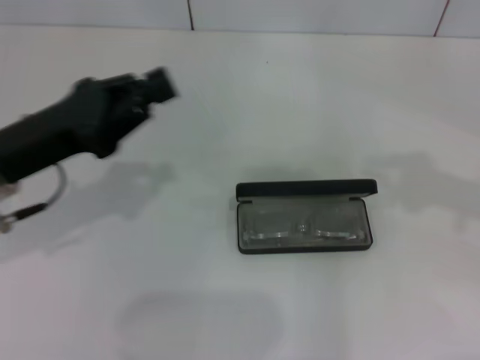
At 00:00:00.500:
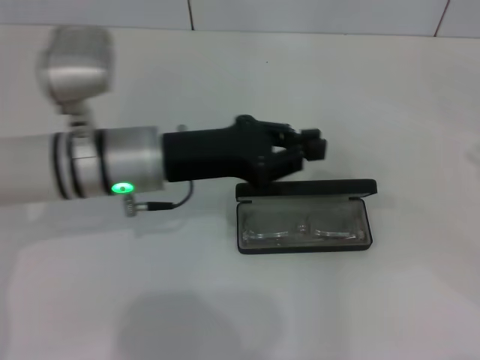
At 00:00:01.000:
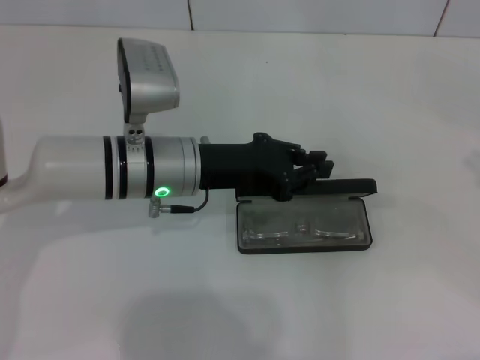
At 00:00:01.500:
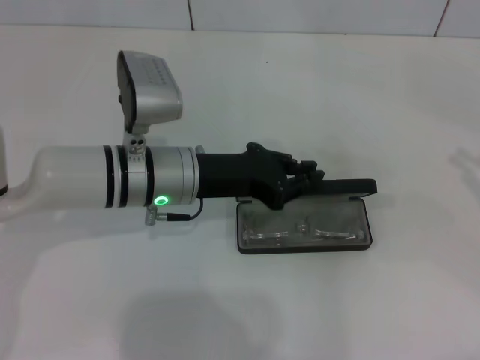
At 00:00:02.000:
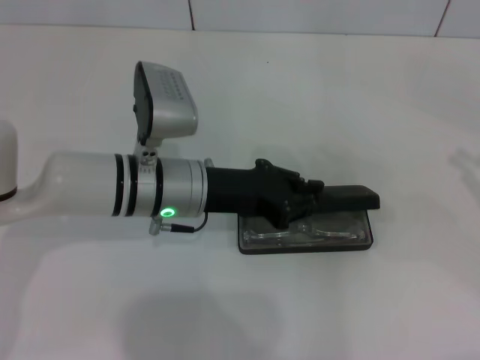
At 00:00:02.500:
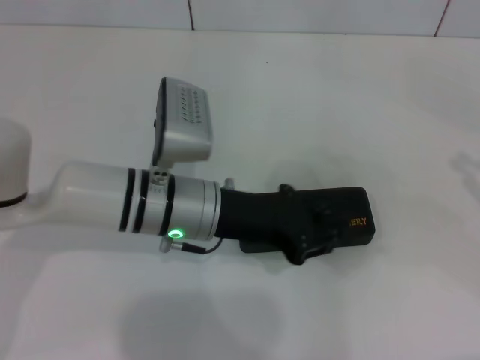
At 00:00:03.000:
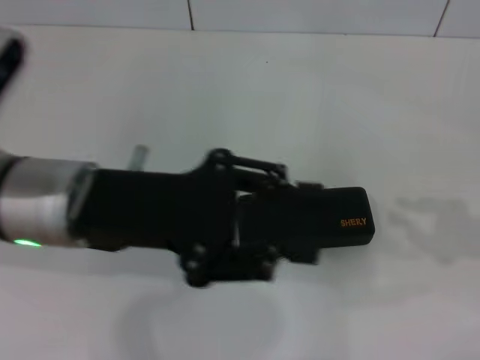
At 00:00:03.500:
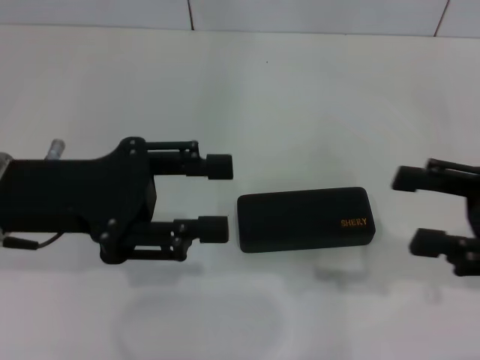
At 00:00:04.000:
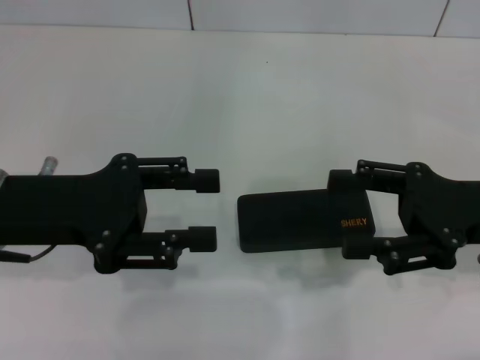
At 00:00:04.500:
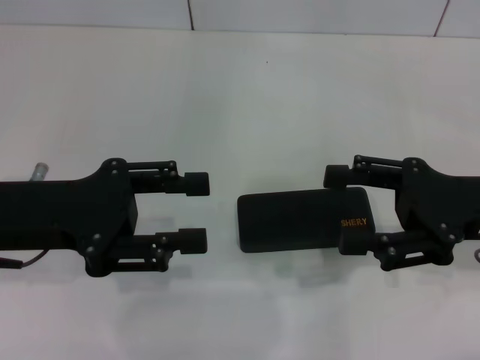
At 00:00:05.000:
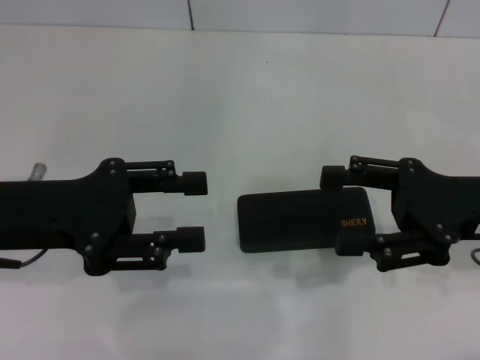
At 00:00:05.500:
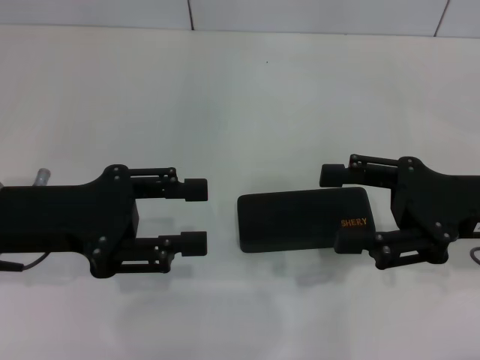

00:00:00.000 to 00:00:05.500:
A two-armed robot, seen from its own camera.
Step, 00:00:00.000 to 00:00:02.000: Close the glasses case with your left hand.
00:00:00.000 to 00:00:02.000: The right gripper shifts some 10 cm downward and to the right. The left gripper moves to the right and downward, about 15 cm.
00:00:02.000 to 00:00:03.500: The left gripper travels to the left, upward and backward by roughly 15 cm, and opens up; the right gripper goes approximately 10 cm to the left, and opens its fingers.
00:00:03.500 to 00:00:05.500: The right gripper moves about 5 cm, and opens its fingers.
